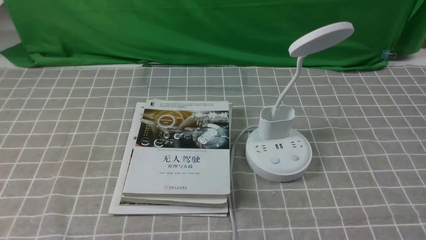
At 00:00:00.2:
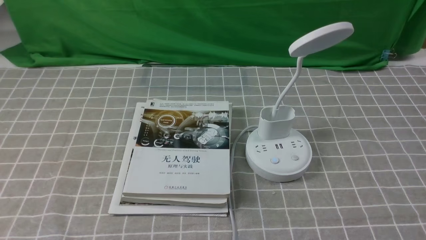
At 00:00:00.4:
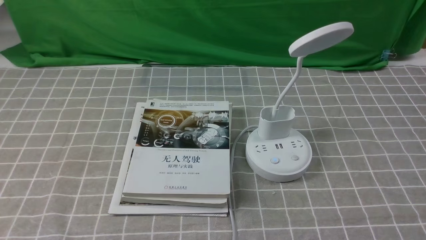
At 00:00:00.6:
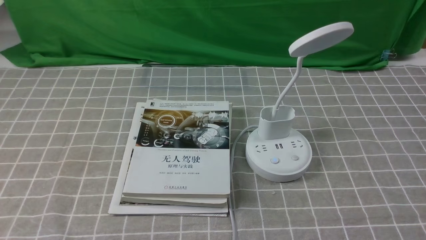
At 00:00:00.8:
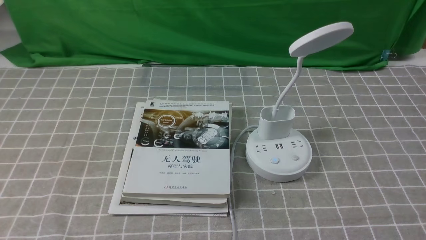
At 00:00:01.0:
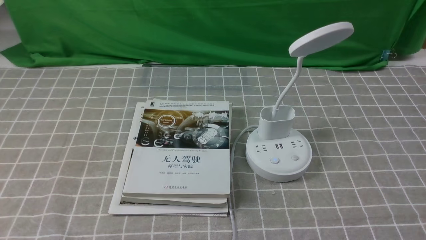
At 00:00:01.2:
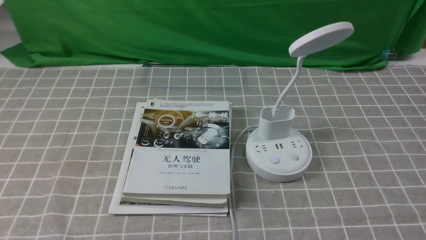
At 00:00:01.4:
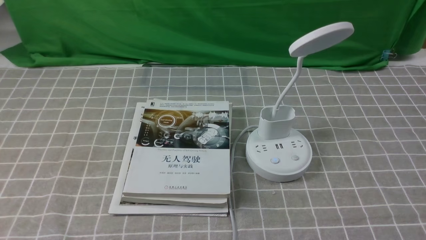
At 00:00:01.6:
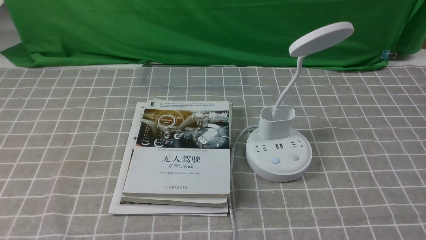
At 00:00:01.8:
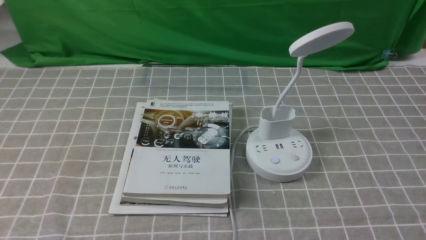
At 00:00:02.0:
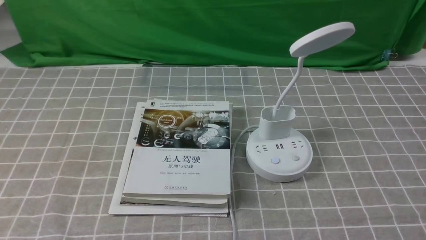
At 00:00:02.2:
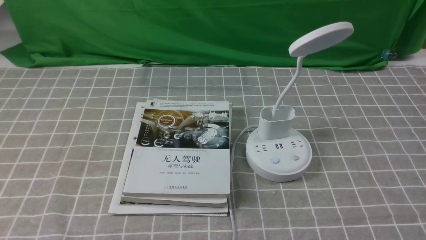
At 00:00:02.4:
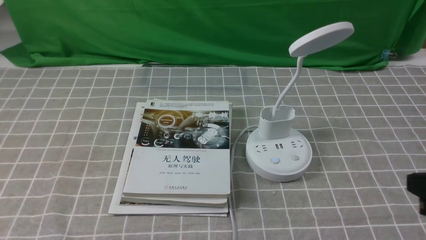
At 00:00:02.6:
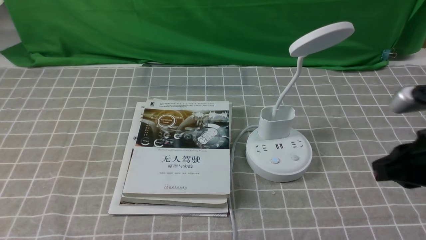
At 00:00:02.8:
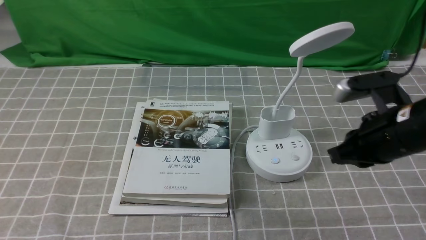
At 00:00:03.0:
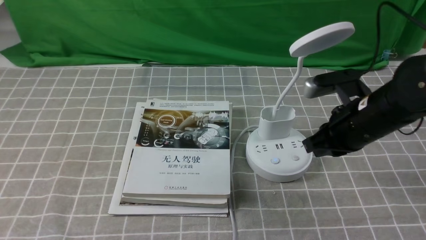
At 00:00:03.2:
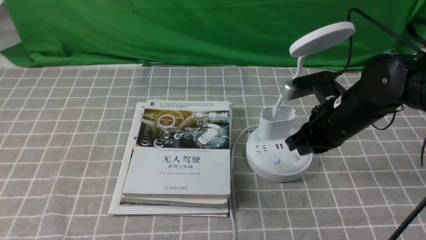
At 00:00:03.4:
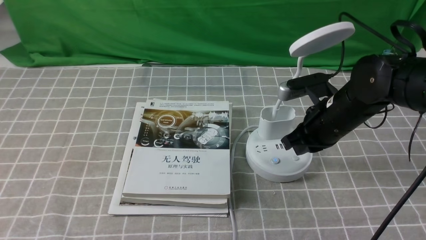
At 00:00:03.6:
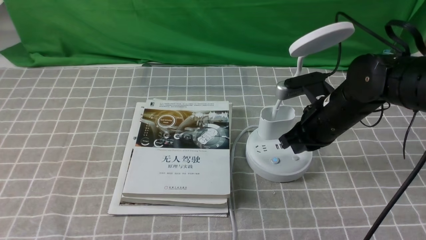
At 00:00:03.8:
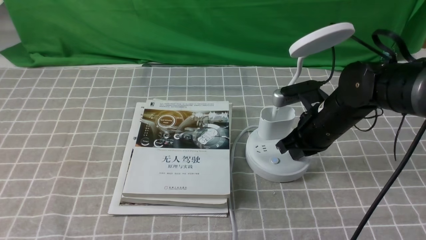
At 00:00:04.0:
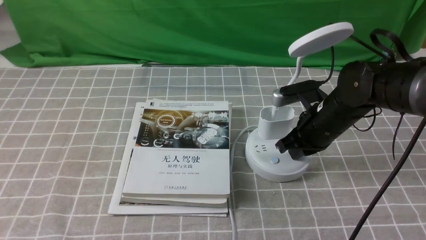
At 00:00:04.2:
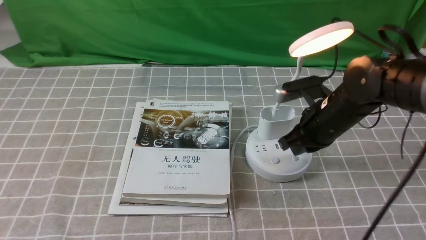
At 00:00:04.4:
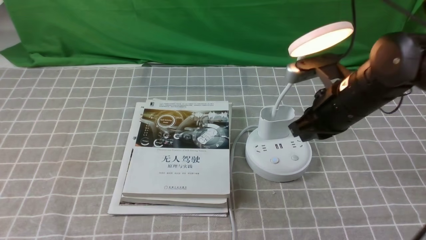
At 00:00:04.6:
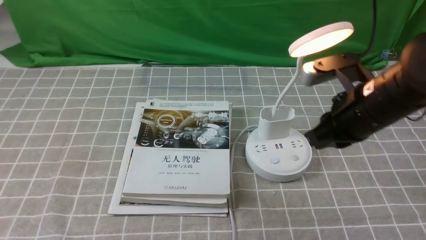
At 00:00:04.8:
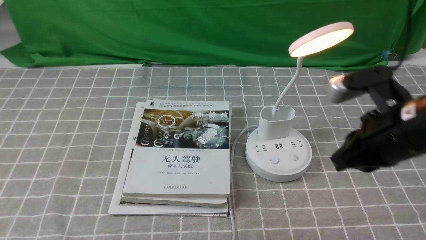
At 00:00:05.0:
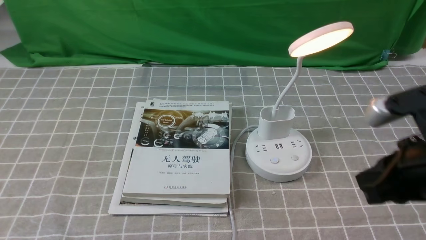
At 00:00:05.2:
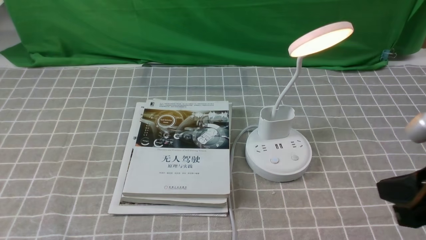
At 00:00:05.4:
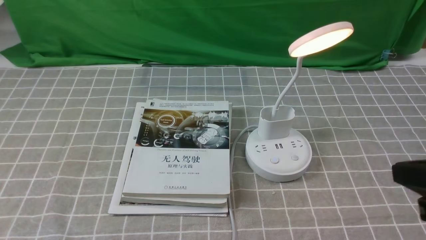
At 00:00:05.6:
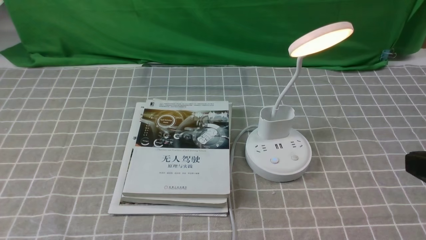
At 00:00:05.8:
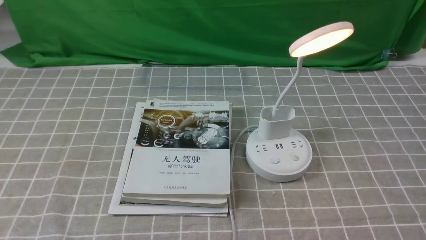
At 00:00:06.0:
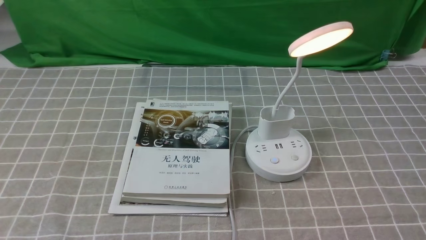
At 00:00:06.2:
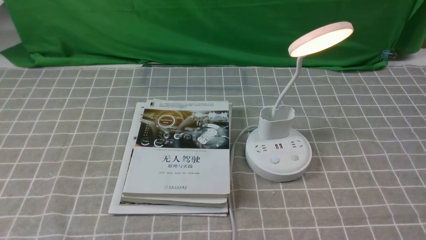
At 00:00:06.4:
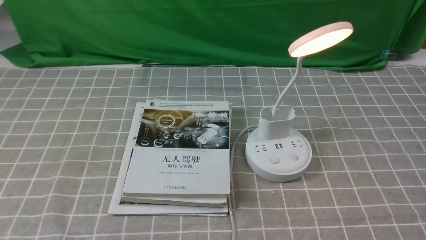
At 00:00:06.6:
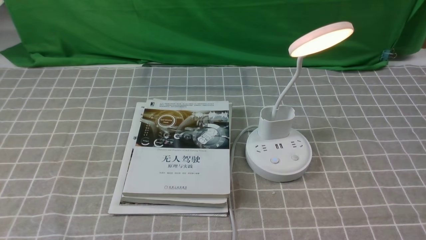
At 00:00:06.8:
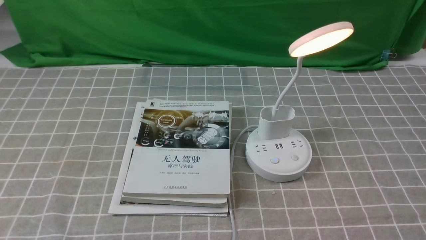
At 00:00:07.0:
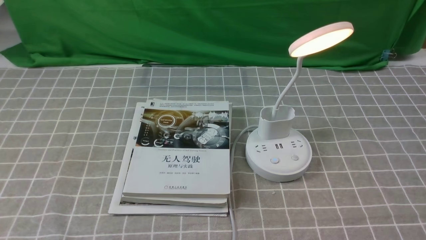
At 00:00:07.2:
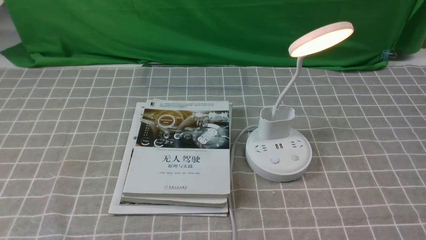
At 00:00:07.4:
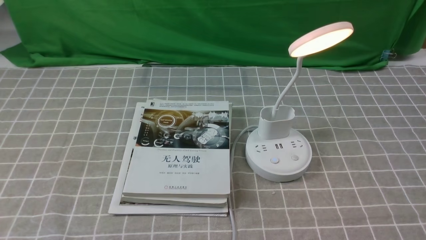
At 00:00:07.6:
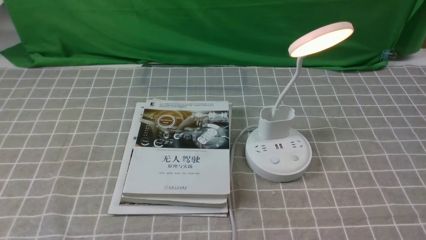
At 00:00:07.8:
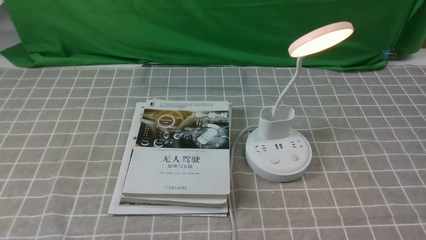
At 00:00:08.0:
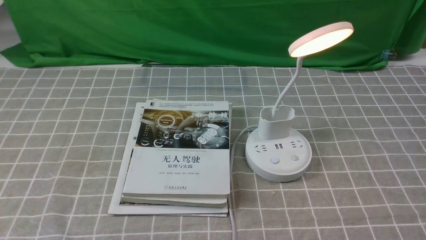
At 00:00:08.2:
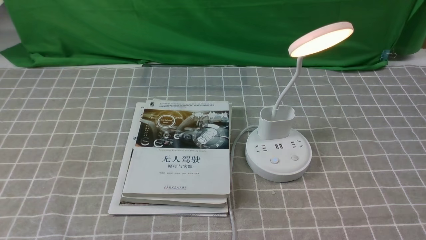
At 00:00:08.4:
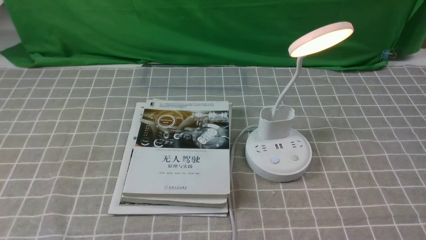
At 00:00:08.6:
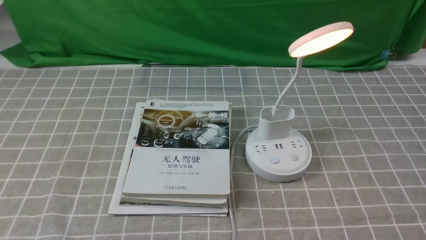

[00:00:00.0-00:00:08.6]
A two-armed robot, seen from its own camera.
Step, 00:00:00.0 to 00:00:04.2: use the right arm to press the button switch on the lamp holder.
00:00:01.4 to 00:00:02.8: The right gripper shifts about 25 cm forward and to the left, and closes its fingers.
00:00:02.8 to 00:00:04.4: The right gripper is displaced forward by roughly 5 cm.
00:00:04.4 to 00:00:05.8: The right gripper travels backward and to the right by about 25 cm.
